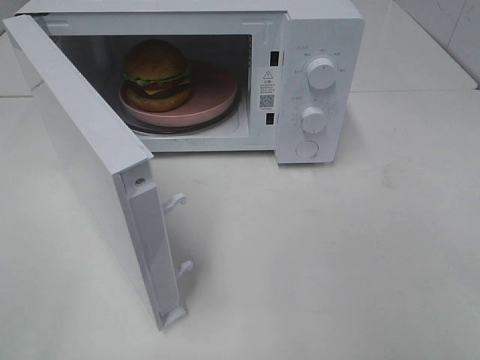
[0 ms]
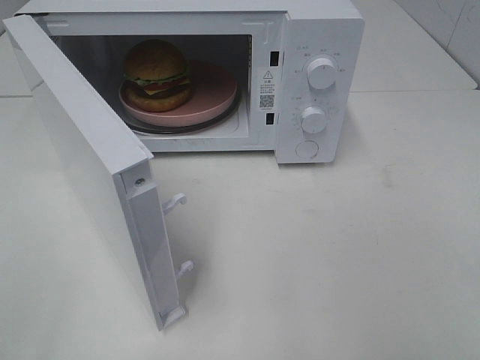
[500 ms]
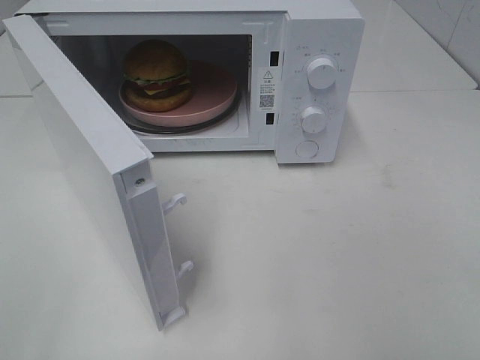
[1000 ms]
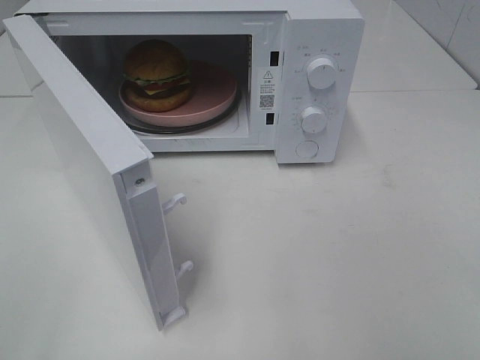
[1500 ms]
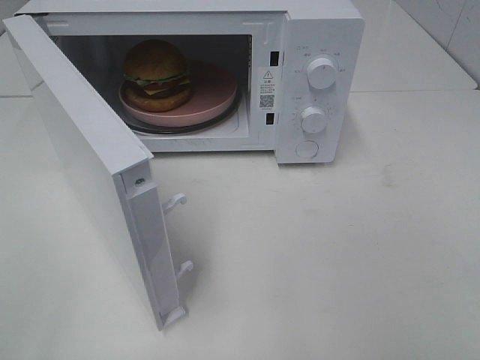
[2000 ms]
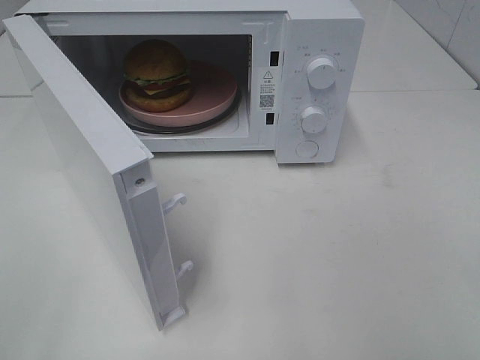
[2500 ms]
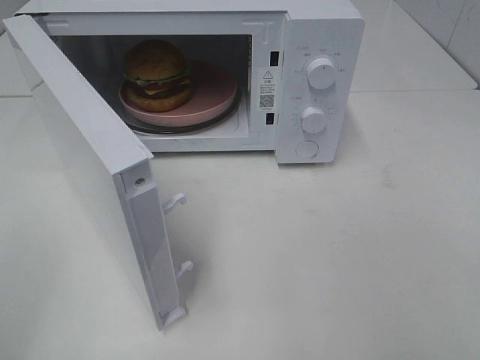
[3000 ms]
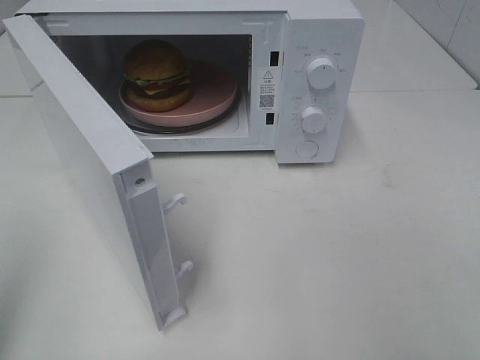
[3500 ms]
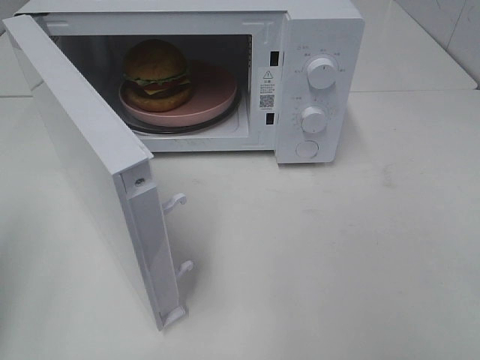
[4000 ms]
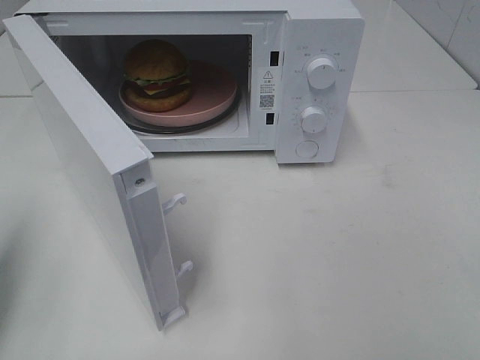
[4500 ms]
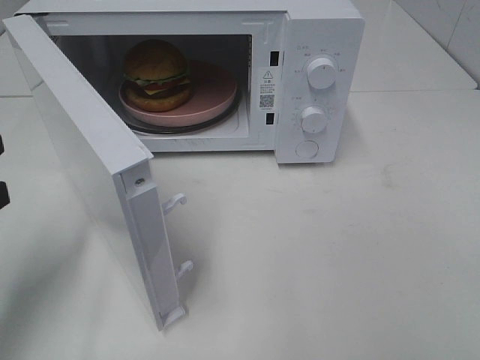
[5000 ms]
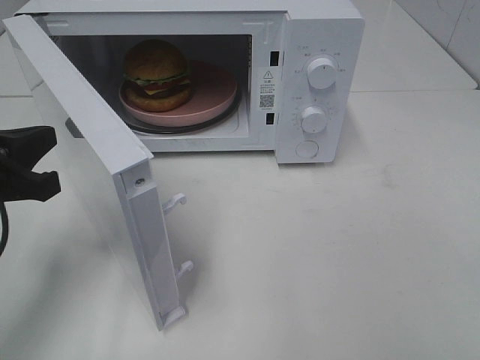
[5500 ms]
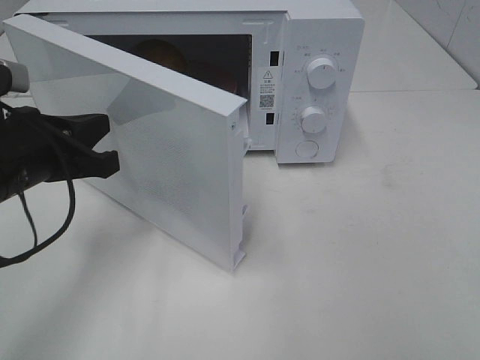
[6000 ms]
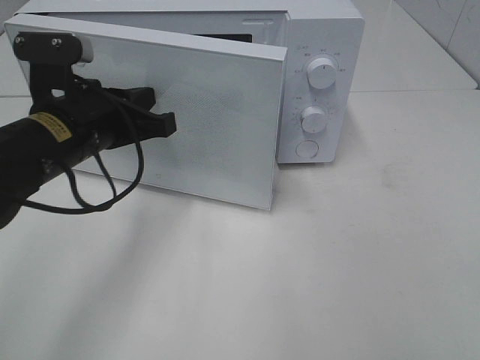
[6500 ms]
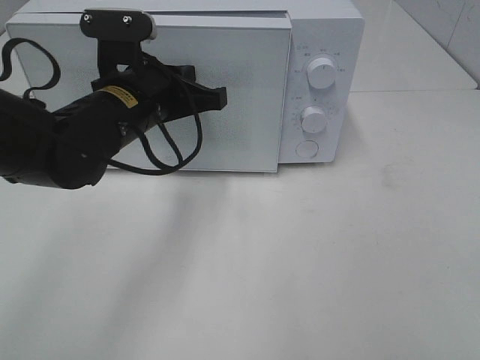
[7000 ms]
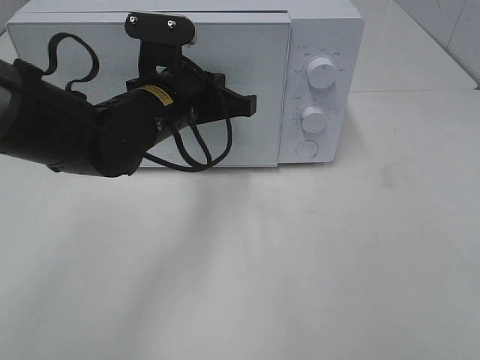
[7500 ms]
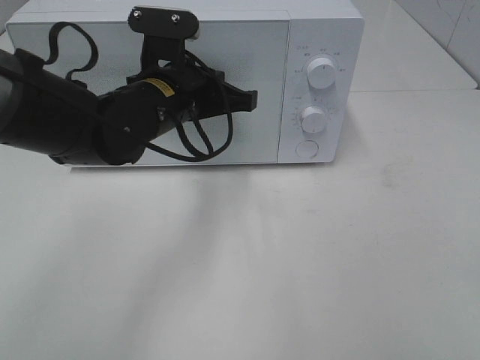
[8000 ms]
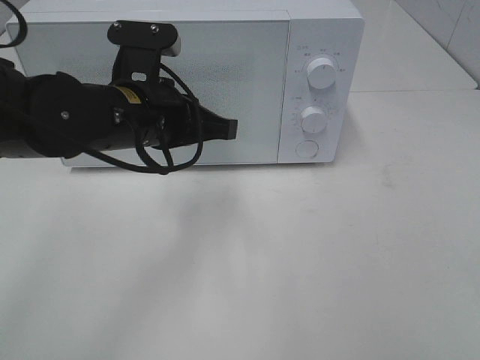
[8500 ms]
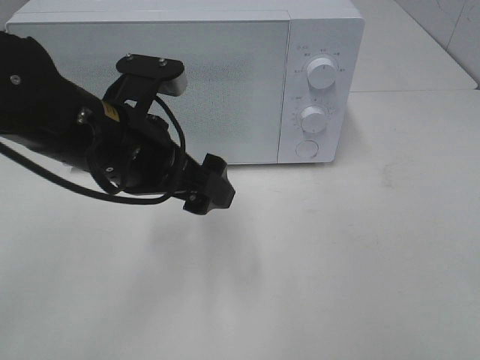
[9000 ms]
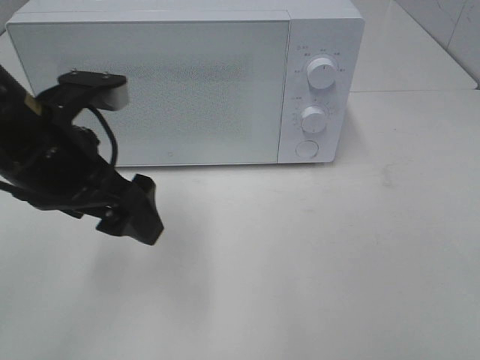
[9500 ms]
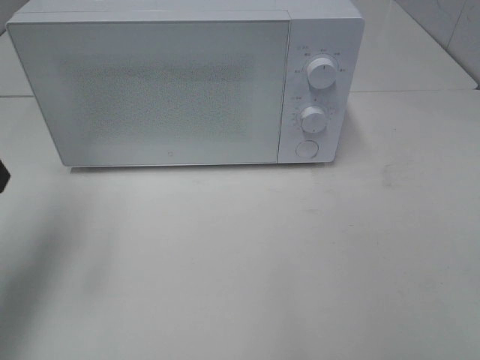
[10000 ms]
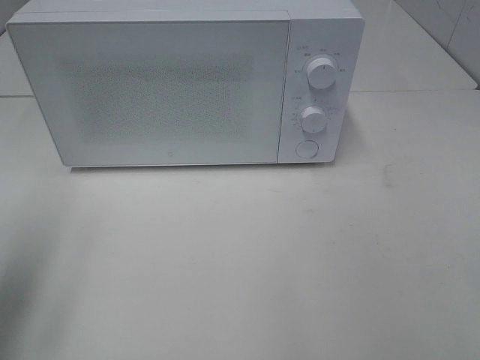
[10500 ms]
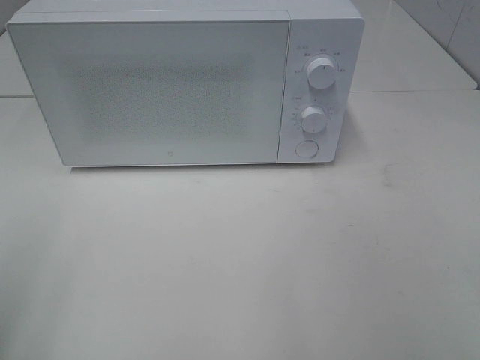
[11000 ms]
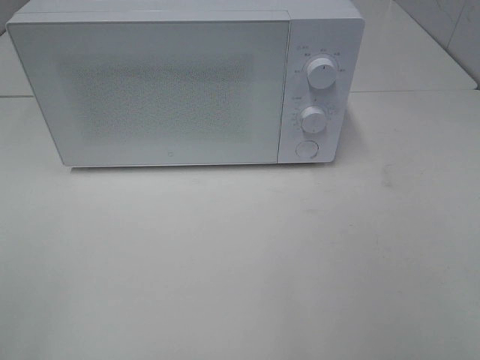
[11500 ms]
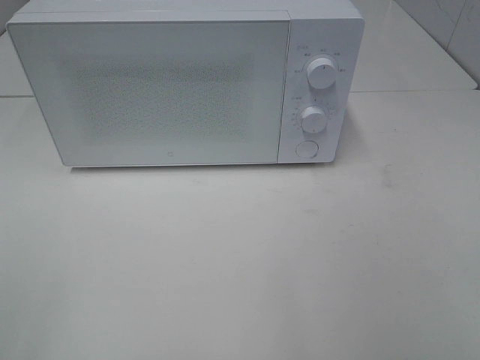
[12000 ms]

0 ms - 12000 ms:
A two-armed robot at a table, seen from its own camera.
Task of the whole recording: Heat the burger.
Step, 0 ms - 8500 ms: Left hand: close the microwave door.
4000 ms - 6000 ms: The left gripper moves to the right, forward and downward, approximately 20 cm.
6000 ms - 8000 ms: The left gripper travels to the right and forward by roughly 15 cm.
8000 ms - 10000 ms: The left gripper goes about 25 cm to the left, backward and upward, and opens its fingers.
10000 ms - 12000 ms: The left gripper moves backward, approximately 25 cm.

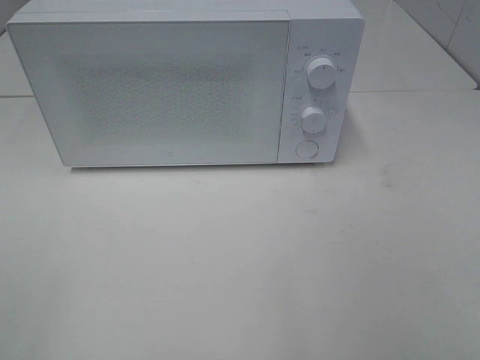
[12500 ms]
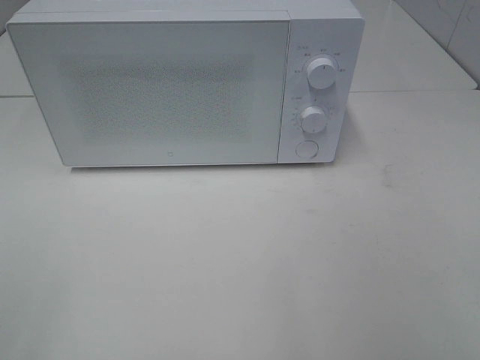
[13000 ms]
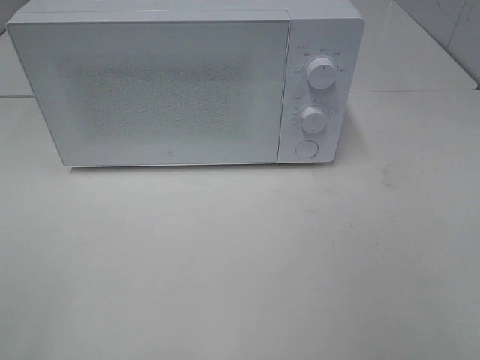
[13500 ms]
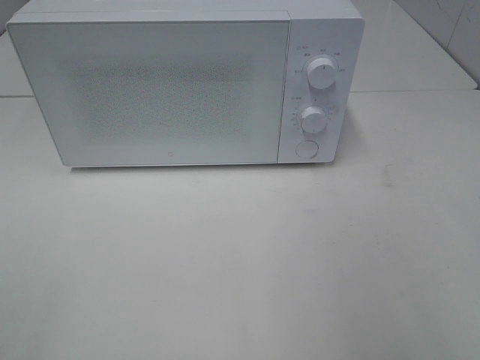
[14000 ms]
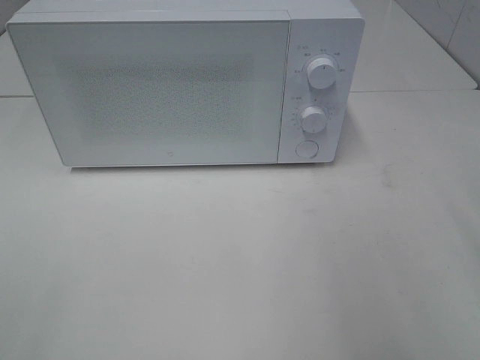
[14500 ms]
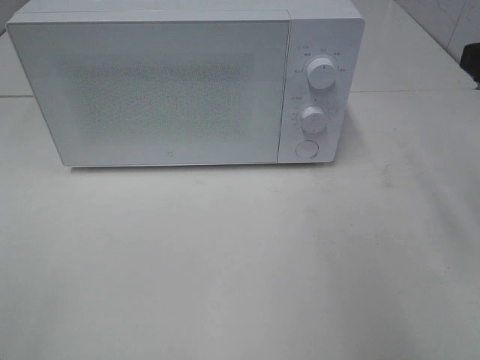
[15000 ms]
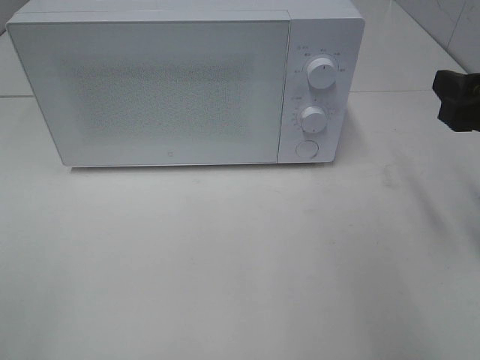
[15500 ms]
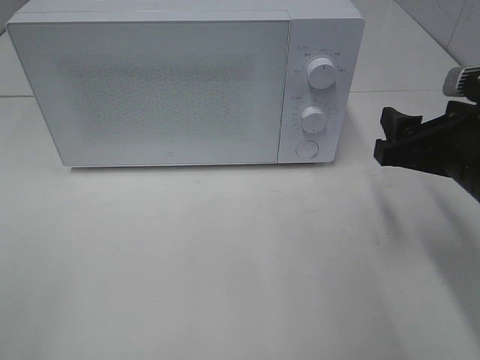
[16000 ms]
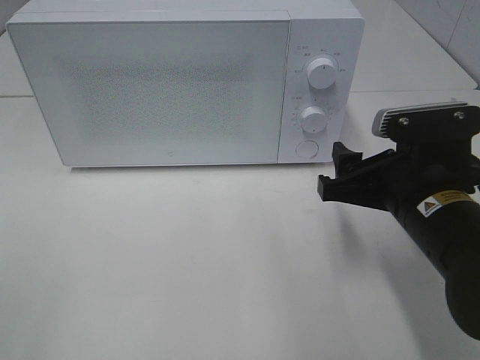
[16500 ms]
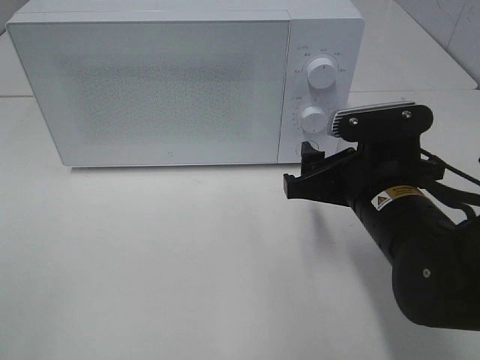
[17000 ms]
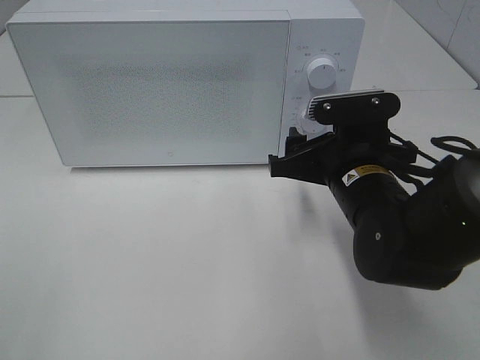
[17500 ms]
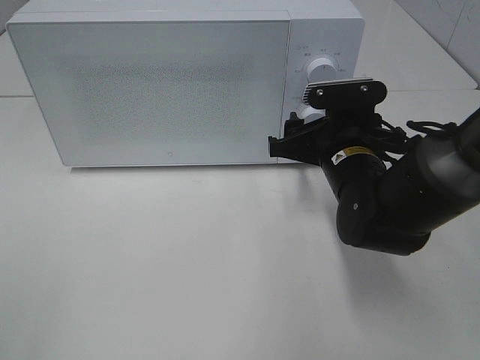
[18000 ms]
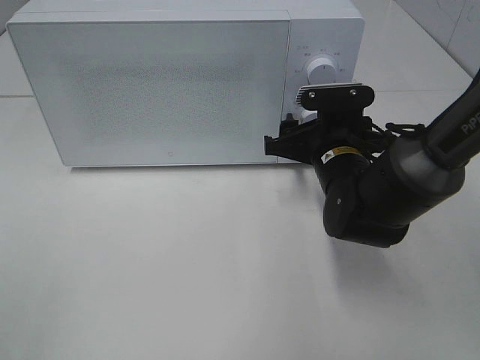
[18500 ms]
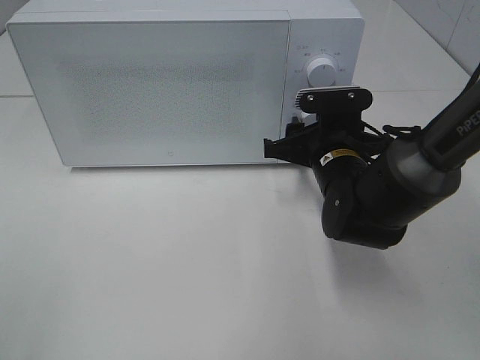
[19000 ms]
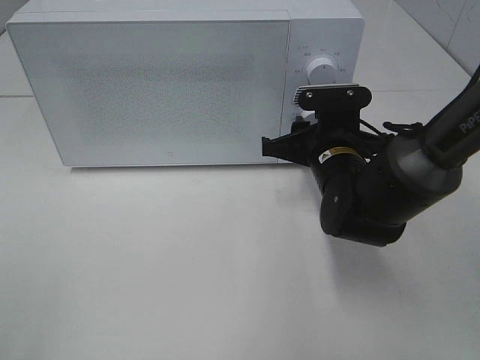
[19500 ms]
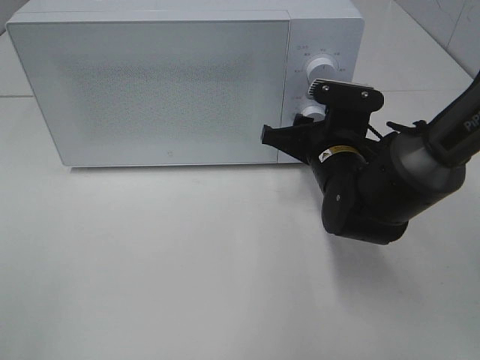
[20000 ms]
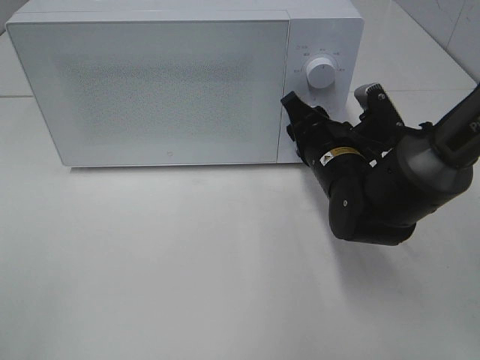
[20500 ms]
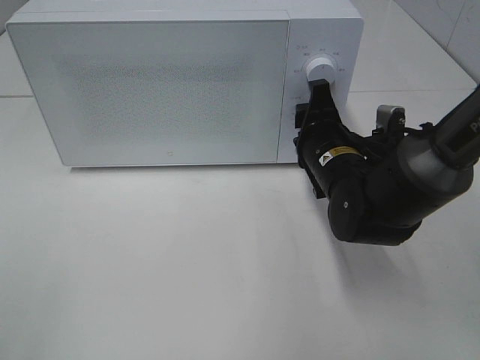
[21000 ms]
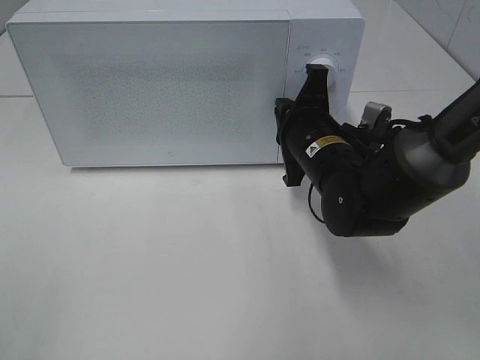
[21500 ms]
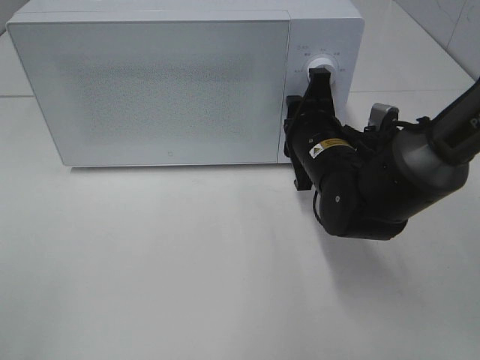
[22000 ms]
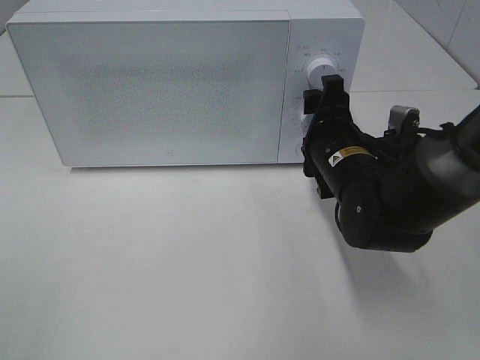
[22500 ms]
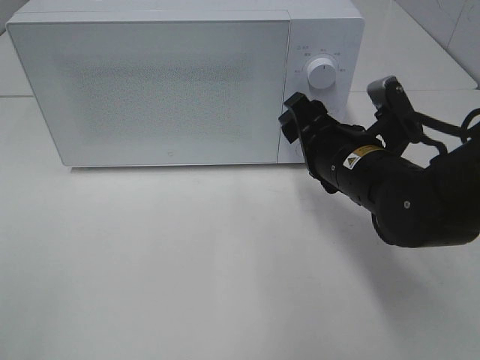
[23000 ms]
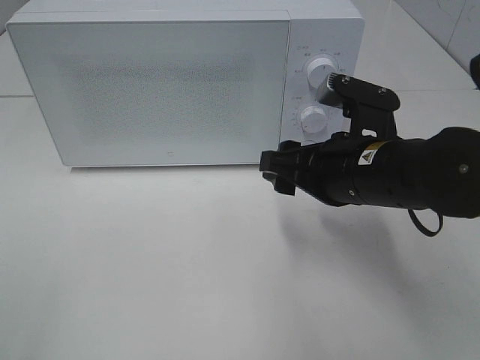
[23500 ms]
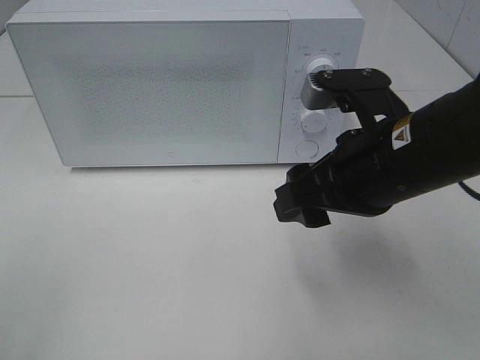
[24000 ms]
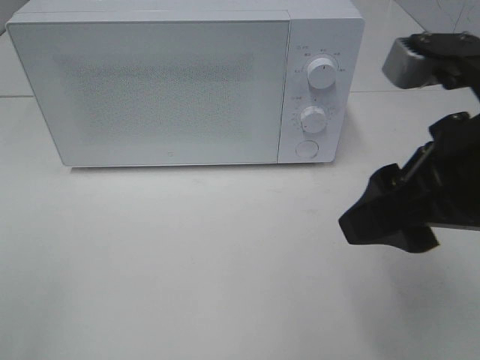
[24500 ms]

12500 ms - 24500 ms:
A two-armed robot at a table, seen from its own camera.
Task of the whole recording: Heat the burger.
Step, 12500 ms - 21500 ms: Right hand: twist timer button.
14500 ms - 16500 ms: The right gripper goes approximately 20 cm downward, to the left and forward.
16500 ms - 18500 ms: The right gripper heads forward, covering some 10 cm.
18500 ms - 20500 ms: The right gripper closes up.
22500 ms - 24500 ms: The right gripper goes some 20 cm backward and upward.

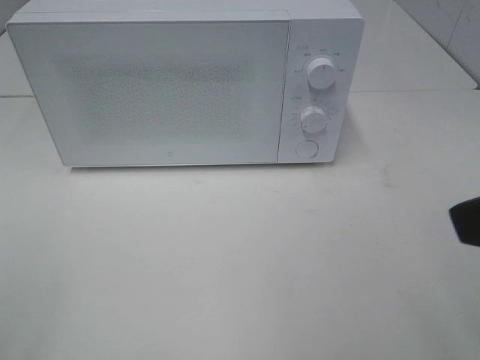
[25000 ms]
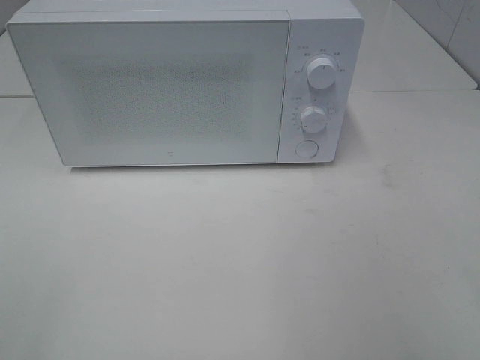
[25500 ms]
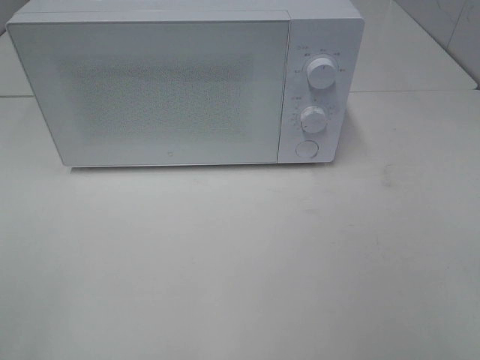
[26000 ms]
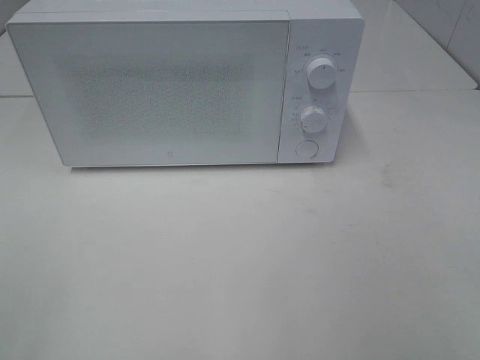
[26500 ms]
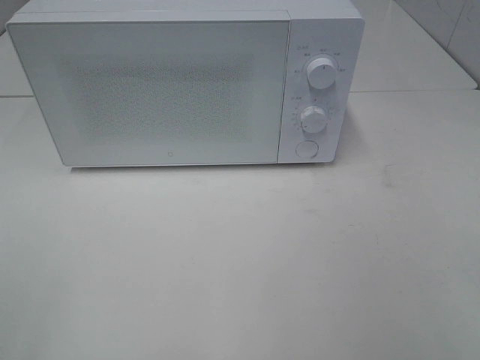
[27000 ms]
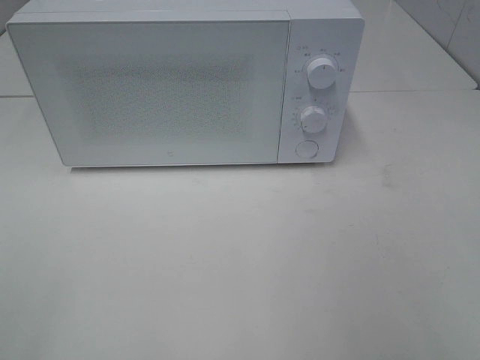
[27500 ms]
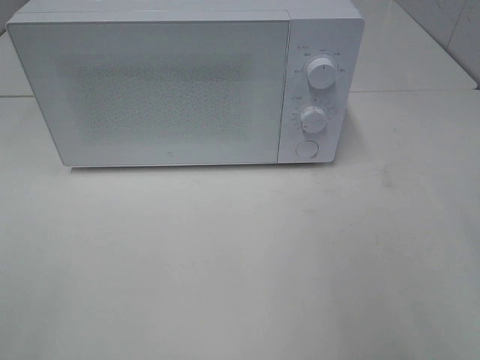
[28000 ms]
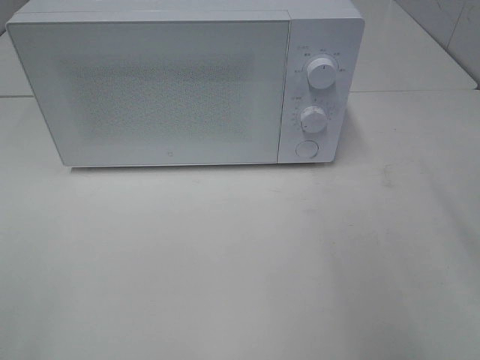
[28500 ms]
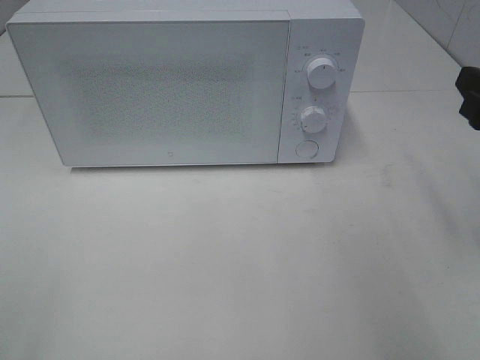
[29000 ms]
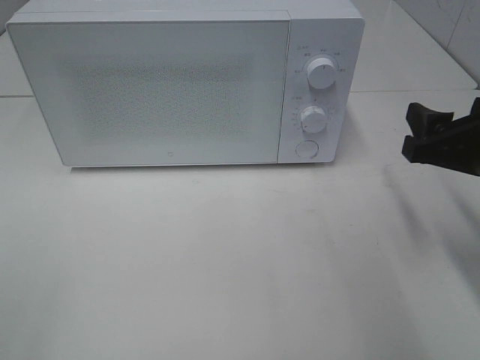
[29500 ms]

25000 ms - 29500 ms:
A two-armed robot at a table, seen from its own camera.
Task of the whole recording: Heat the burger.
25000 ms - 27000 ms: The right gripper moves backward and to the right, about 10 cm.
27000 ms - 29500 ms: The right gripper travels forward and downward by approximately 25 cm.
